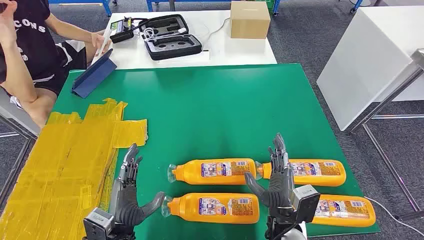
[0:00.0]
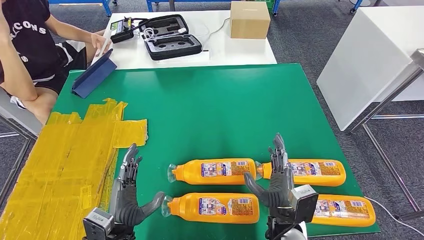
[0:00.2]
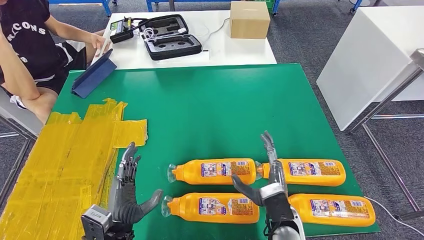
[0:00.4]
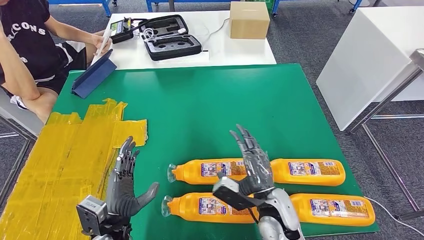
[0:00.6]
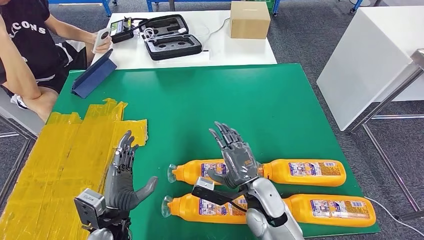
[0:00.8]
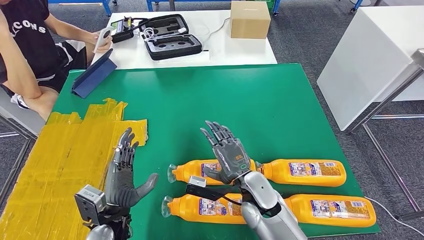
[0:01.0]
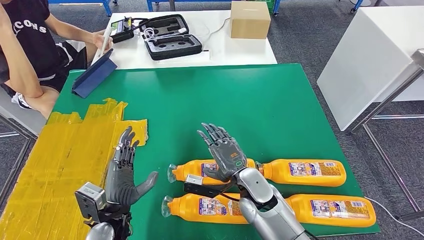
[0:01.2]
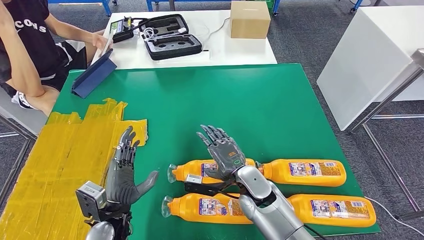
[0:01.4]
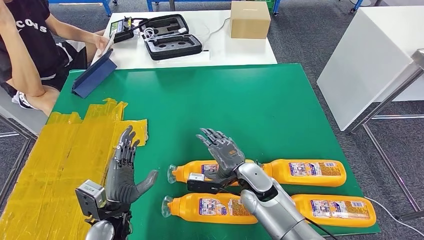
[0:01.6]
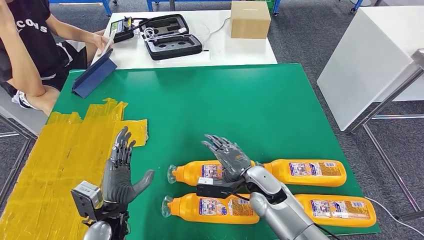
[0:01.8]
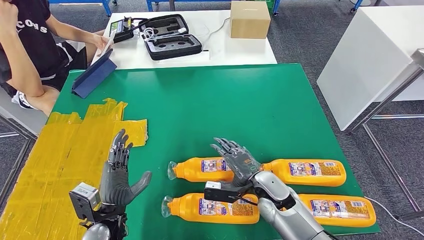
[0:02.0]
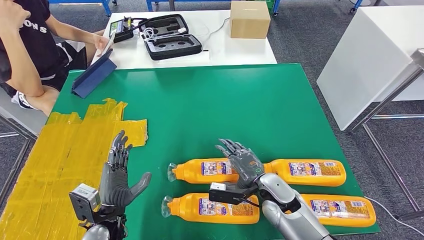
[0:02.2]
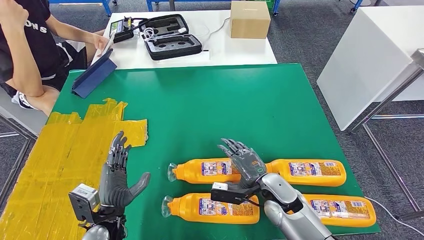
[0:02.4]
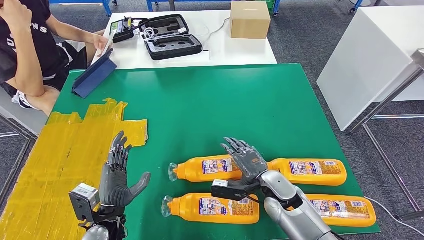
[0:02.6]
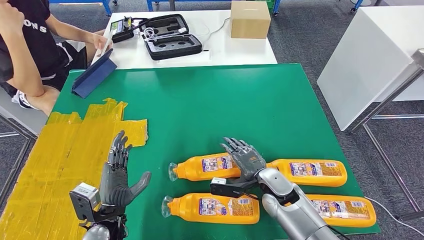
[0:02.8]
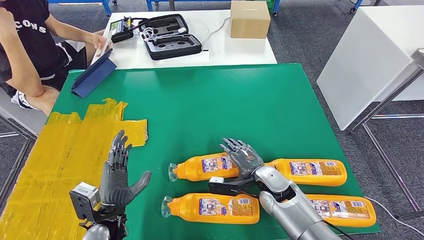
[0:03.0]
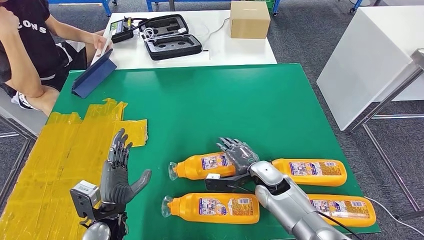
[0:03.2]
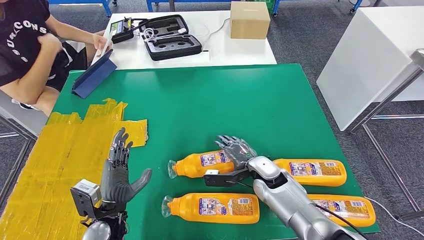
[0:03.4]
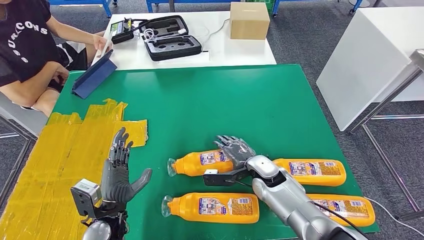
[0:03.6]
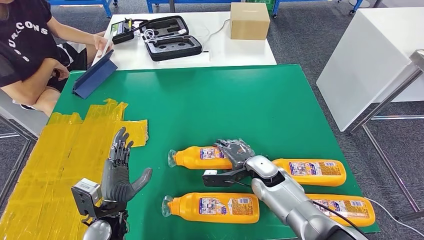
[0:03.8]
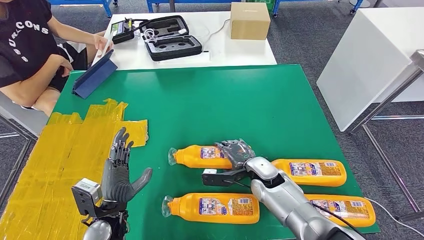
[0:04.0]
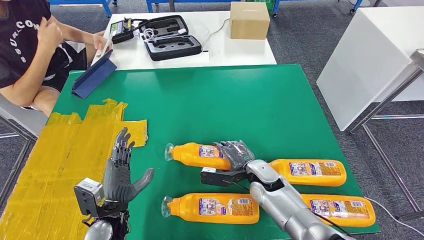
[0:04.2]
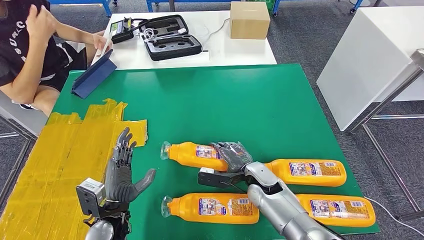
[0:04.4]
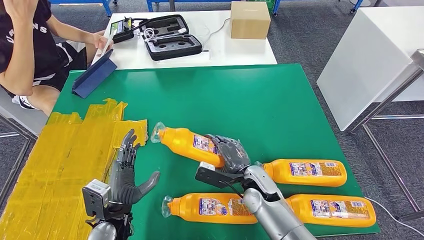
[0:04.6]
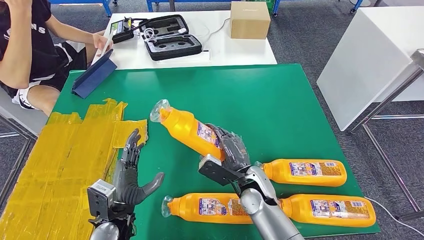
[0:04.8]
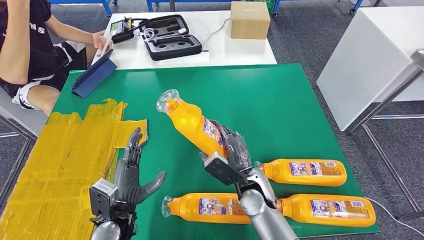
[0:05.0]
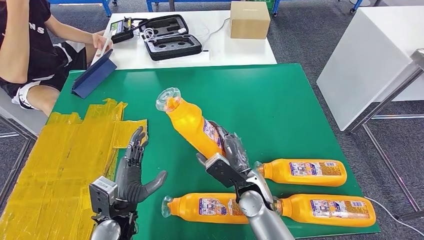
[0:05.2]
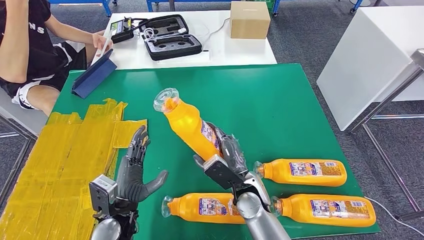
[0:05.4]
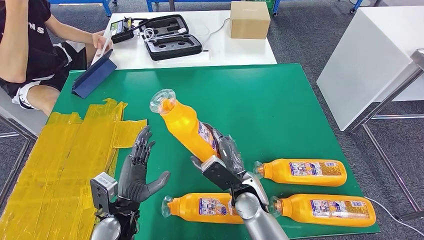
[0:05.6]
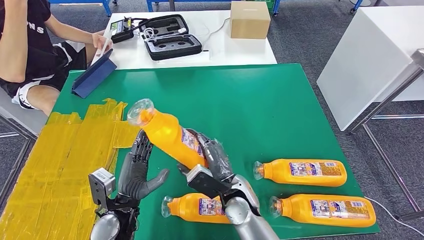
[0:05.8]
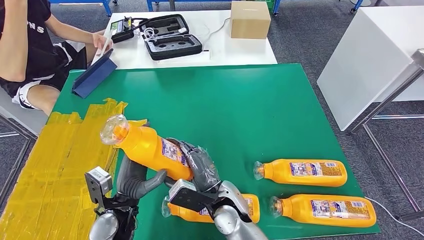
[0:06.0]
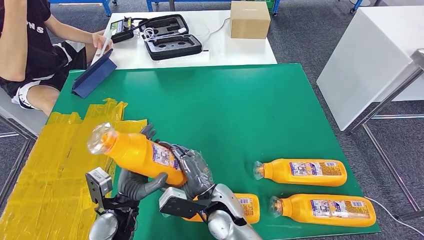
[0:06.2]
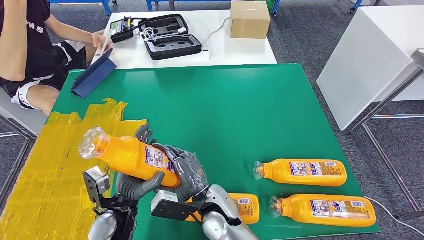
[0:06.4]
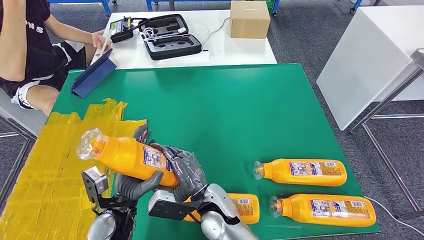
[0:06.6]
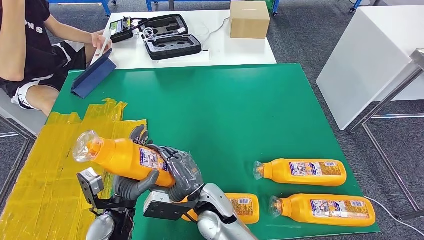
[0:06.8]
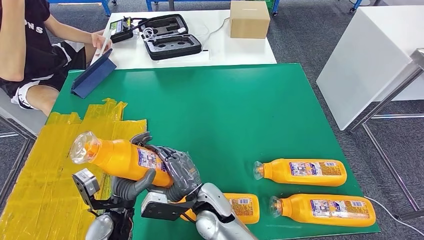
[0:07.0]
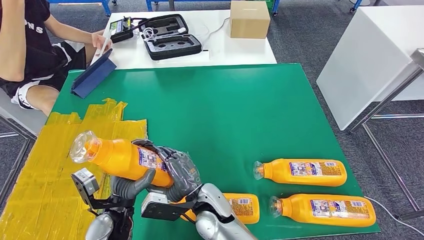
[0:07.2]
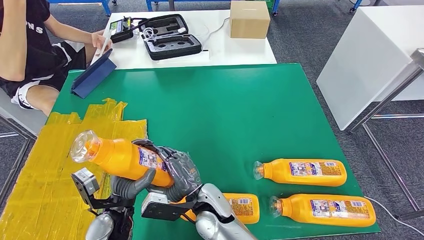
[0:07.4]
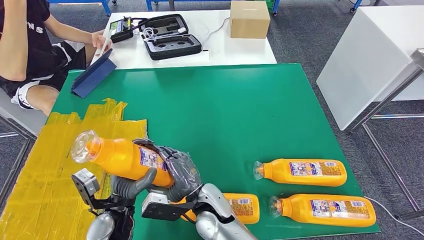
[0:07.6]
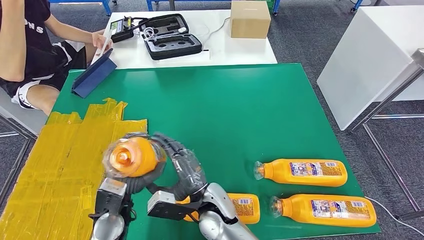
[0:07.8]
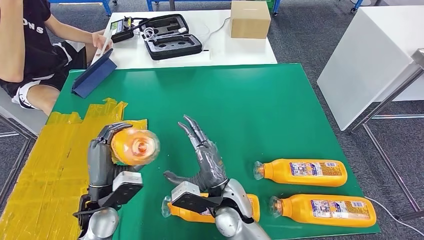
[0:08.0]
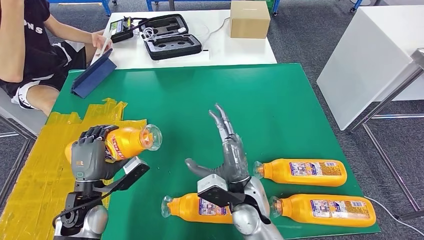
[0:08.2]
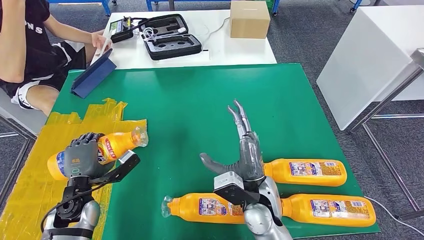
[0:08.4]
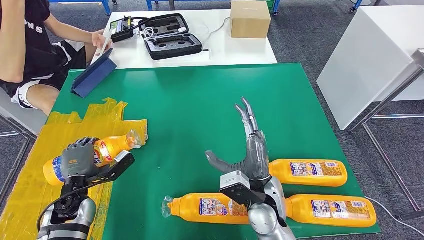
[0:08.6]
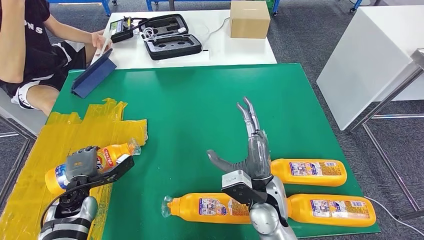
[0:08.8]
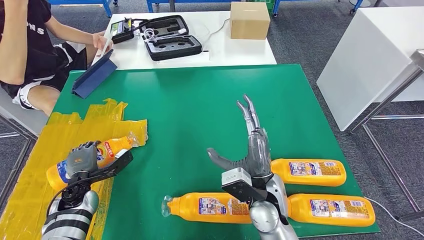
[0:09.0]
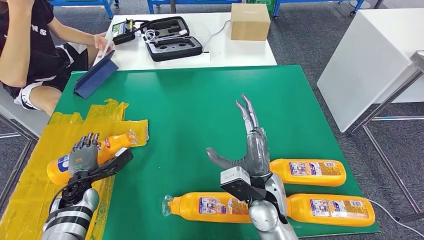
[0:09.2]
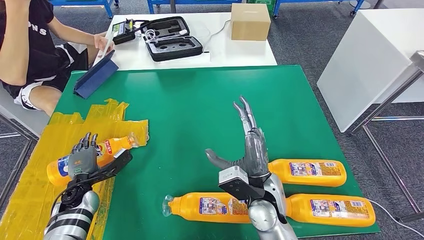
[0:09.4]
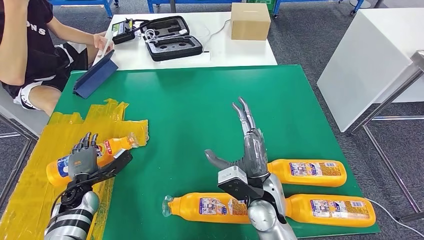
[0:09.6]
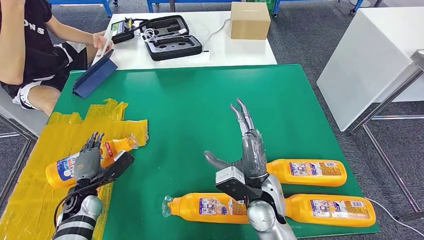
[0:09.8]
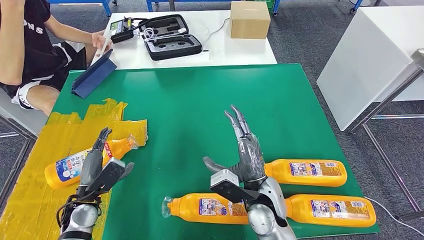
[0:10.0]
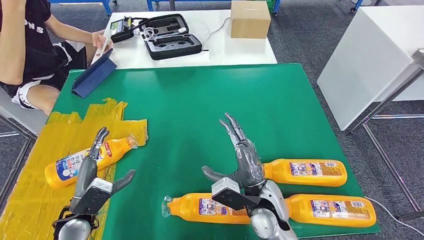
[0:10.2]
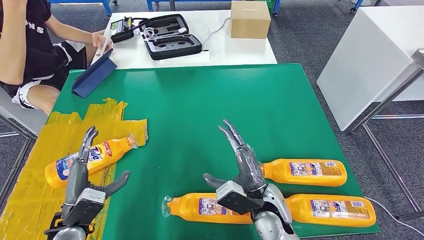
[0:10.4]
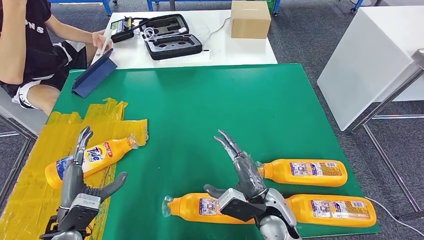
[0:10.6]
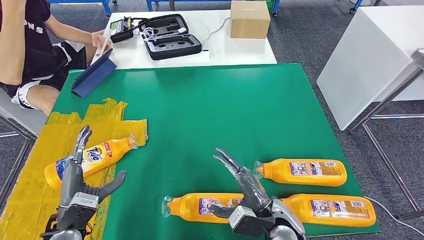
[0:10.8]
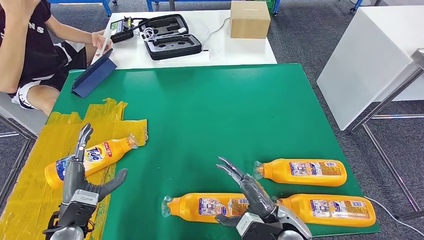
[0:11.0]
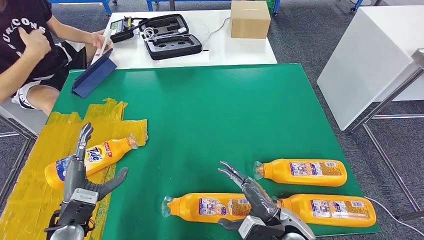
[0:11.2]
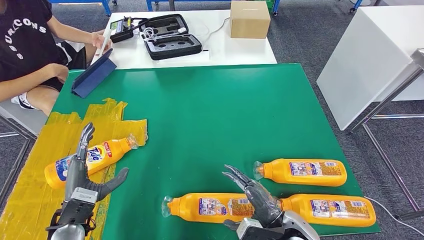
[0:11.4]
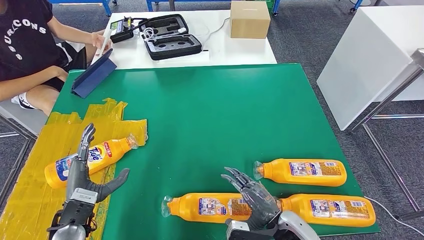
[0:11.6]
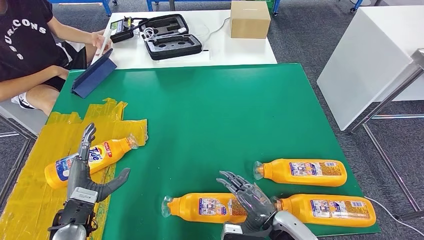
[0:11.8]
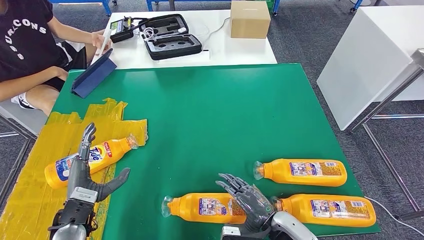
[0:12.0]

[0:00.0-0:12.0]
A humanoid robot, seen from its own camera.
Step, 0:00.0 to 0:04.8: Take the bottle from the table.
Step, 0:05.0 to 0:10.0: Flip the bottle to face forward.
0:01.6 to 0:03.0: The right hand shifts about 5 cm to the right.
0:03.0 to 0:04.4: There are only small adjustments of the hands.
0:04.4 to 0:06.0: The right hand moves to the left, backward and upward, approximately 15 cm.
0:06.0 to 0:07.6: There are only small adjustments of the hands.
0:09.0 to 0:10.4: The left hand moves backward and upward, some 10 cm.
0:10.4 to 0:12.0: The right hand shifts approximately 10 cm downward, to the right and backward.

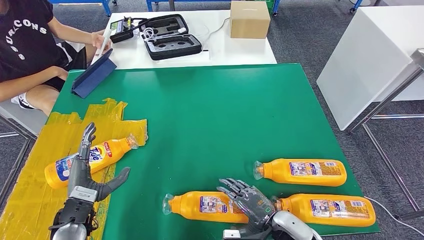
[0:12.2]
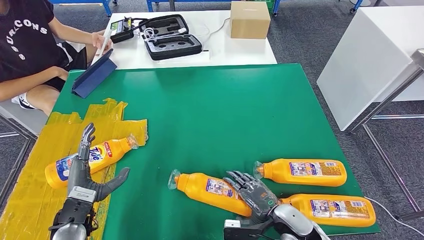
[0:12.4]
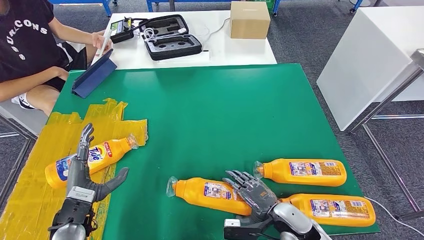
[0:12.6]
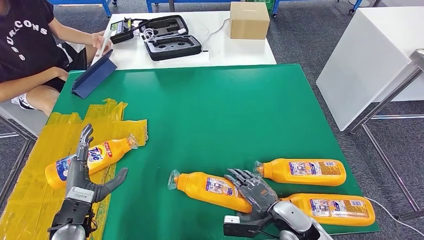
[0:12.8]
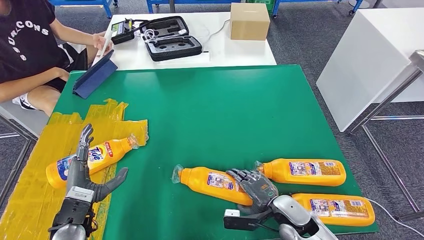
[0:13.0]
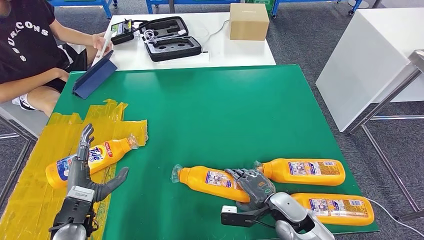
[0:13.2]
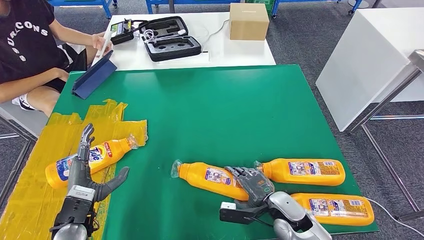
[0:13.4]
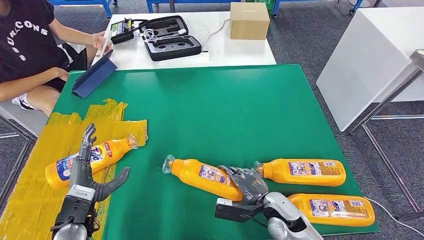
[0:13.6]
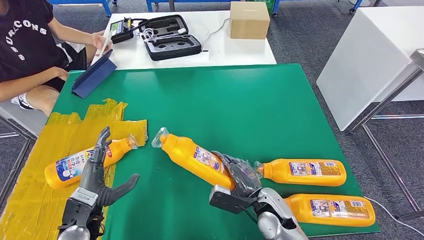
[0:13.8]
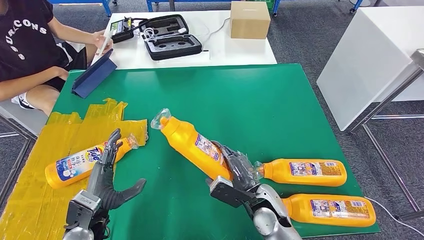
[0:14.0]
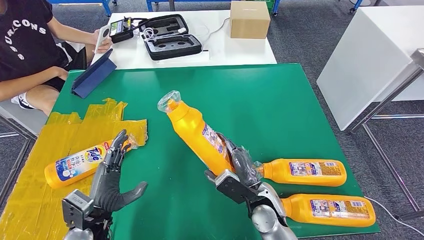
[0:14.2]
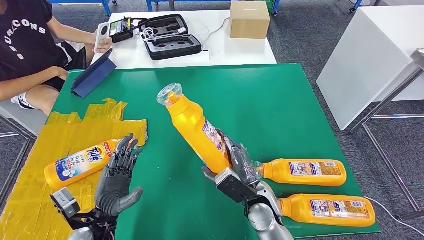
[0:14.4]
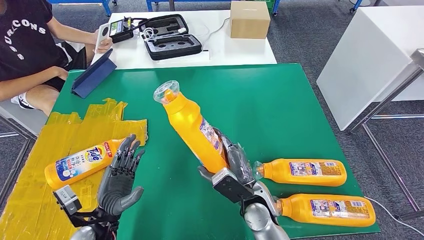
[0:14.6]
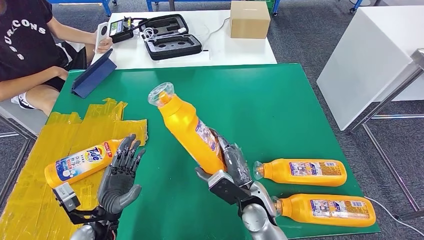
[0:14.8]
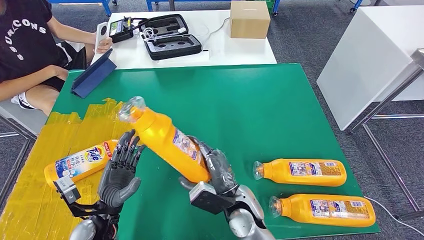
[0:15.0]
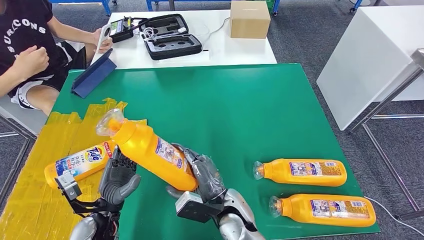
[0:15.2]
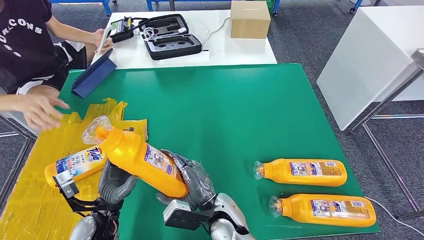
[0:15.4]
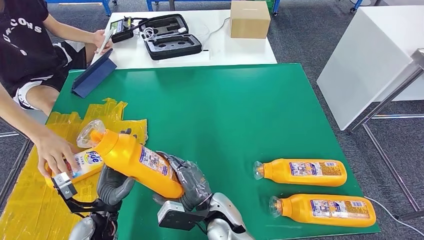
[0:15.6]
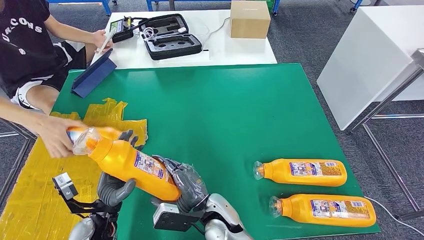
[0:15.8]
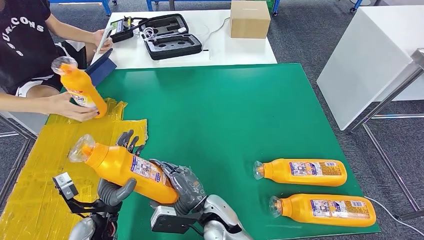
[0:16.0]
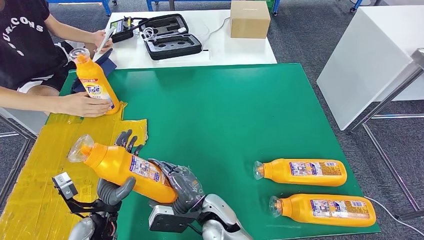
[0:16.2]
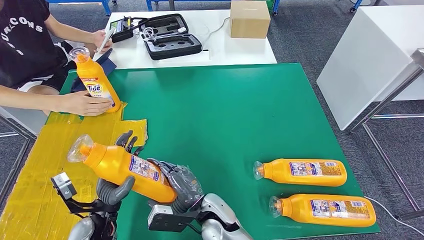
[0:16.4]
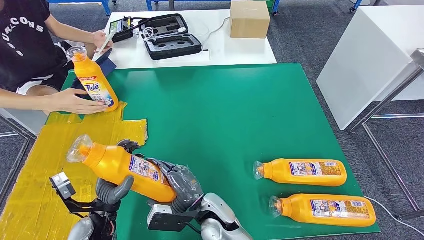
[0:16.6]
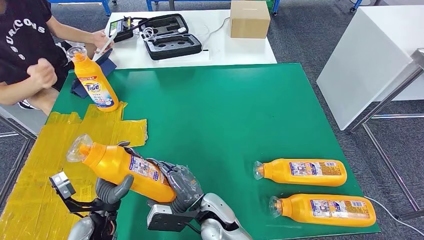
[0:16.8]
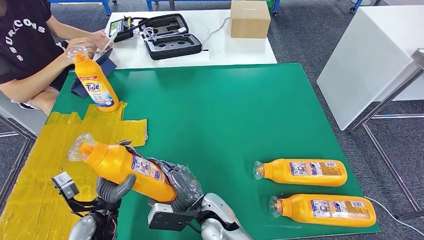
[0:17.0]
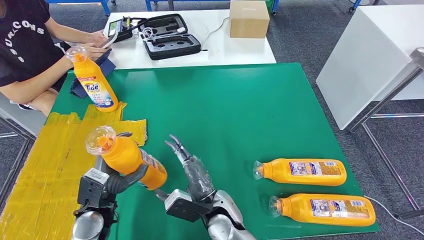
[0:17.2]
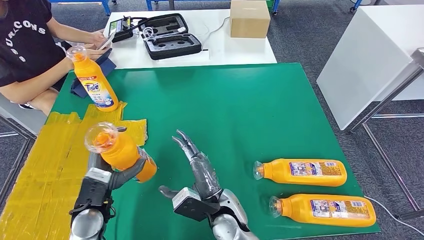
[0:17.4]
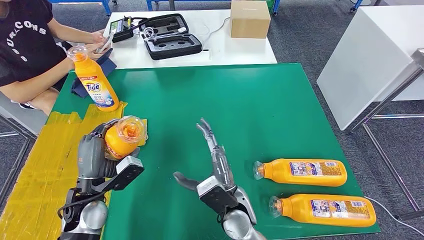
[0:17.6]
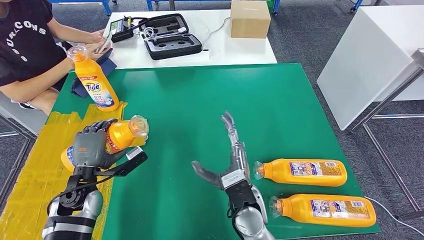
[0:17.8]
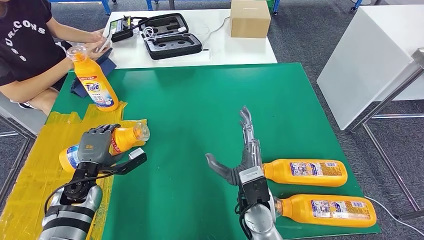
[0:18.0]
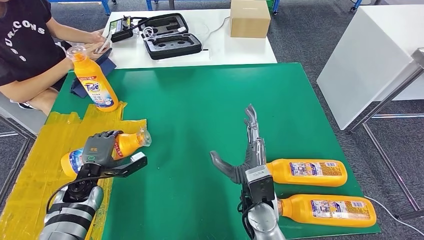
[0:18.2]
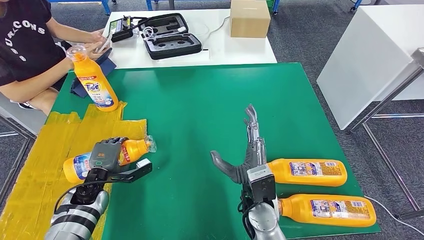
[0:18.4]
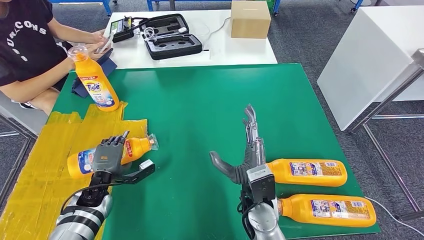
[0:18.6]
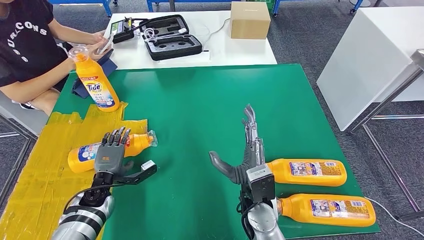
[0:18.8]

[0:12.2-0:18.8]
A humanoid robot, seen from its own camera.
Step, 0:12.2 to 0:16.0: Pick up the bottle from the table.
0:12.2 to 0:13.8: The right hand is displaced forward by about 5 cm.
